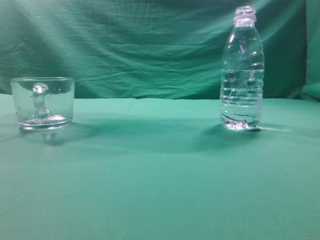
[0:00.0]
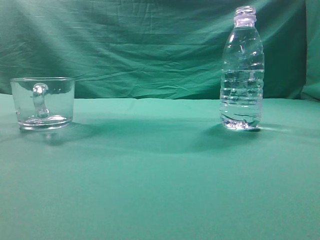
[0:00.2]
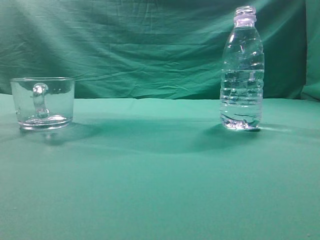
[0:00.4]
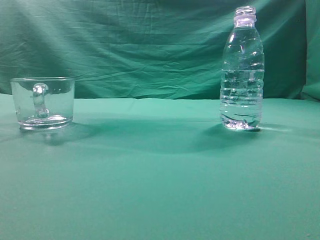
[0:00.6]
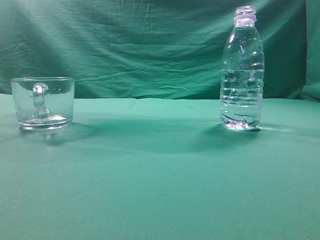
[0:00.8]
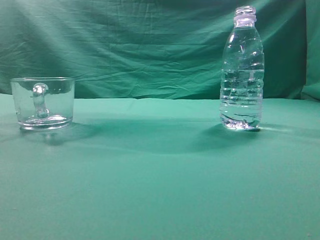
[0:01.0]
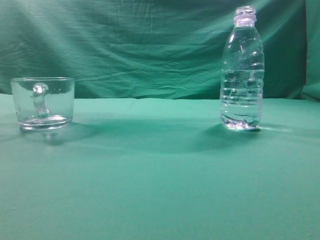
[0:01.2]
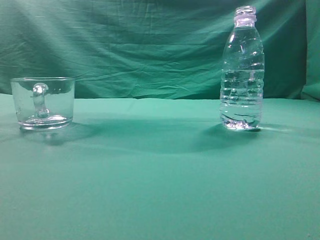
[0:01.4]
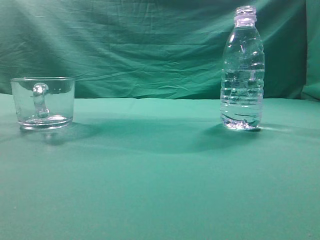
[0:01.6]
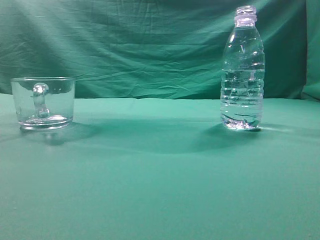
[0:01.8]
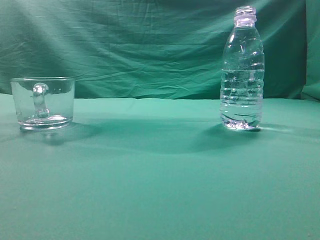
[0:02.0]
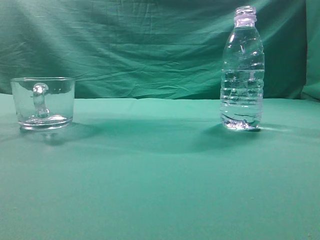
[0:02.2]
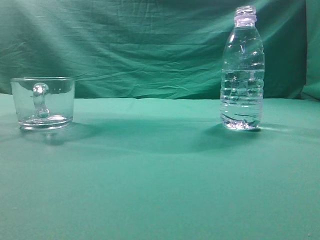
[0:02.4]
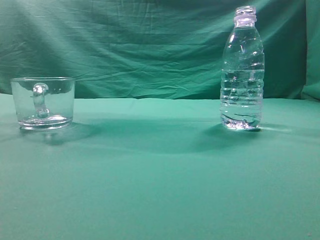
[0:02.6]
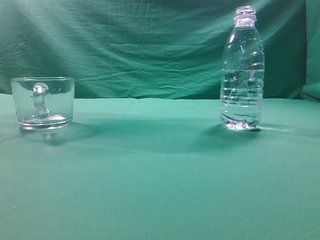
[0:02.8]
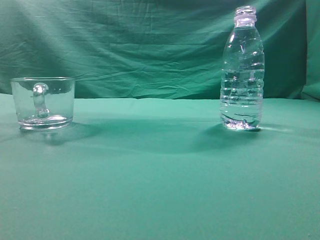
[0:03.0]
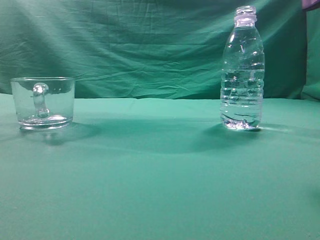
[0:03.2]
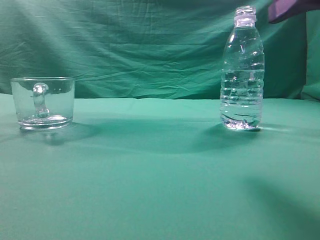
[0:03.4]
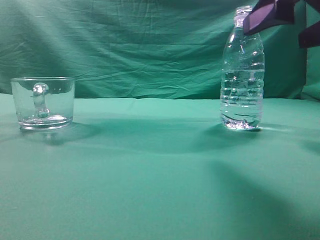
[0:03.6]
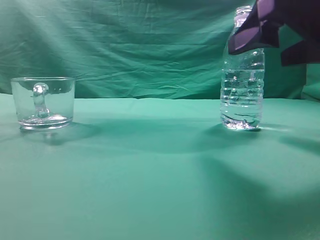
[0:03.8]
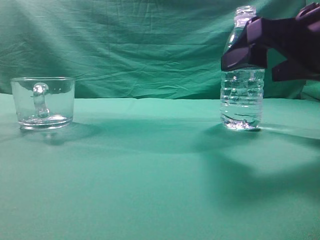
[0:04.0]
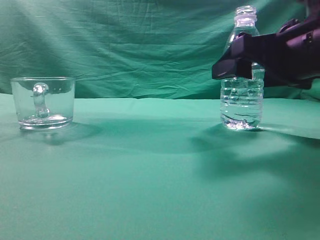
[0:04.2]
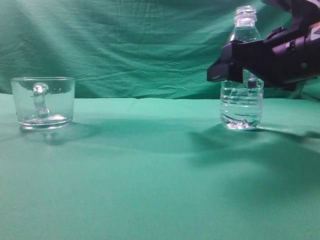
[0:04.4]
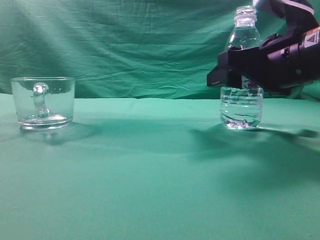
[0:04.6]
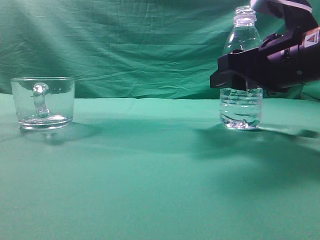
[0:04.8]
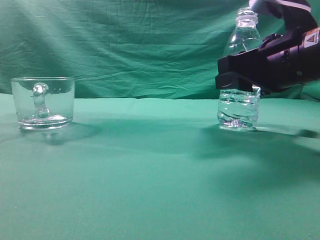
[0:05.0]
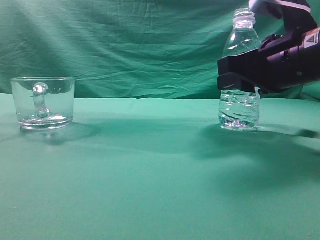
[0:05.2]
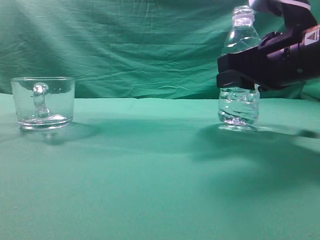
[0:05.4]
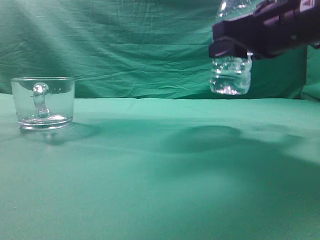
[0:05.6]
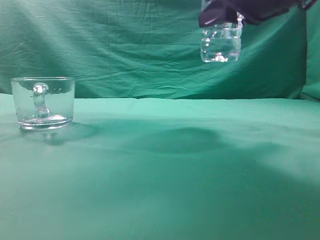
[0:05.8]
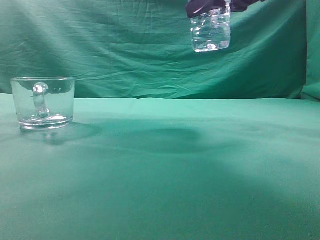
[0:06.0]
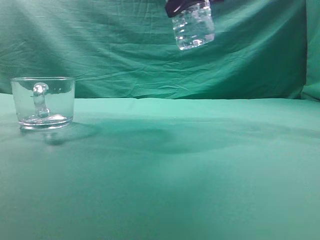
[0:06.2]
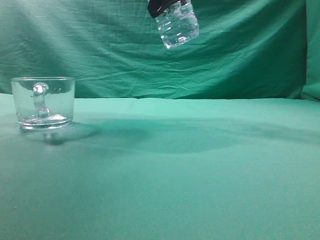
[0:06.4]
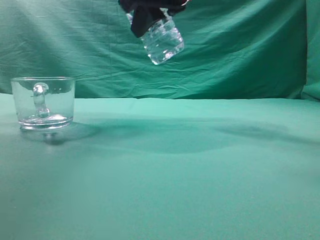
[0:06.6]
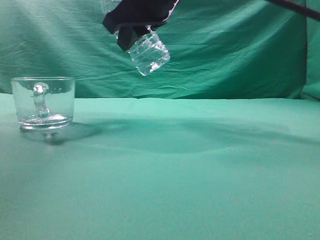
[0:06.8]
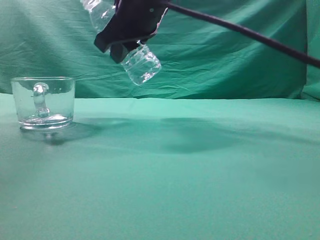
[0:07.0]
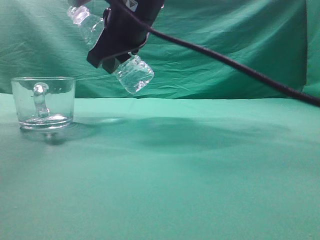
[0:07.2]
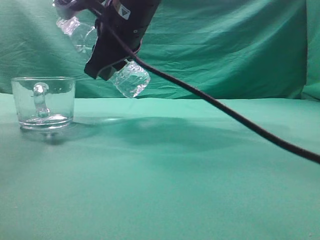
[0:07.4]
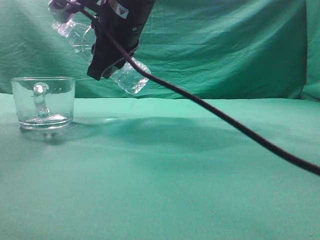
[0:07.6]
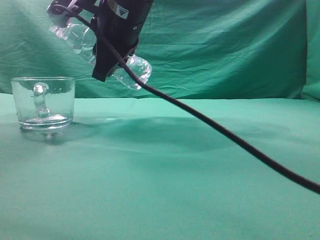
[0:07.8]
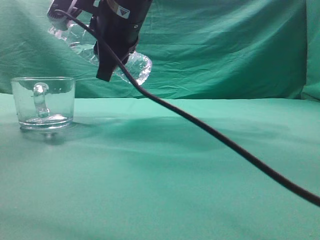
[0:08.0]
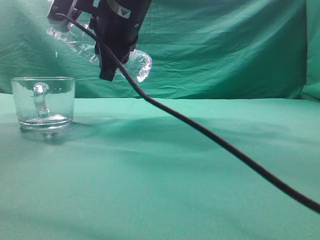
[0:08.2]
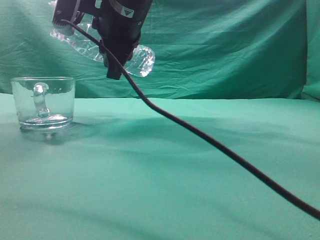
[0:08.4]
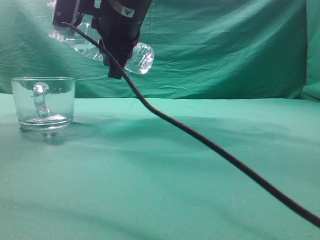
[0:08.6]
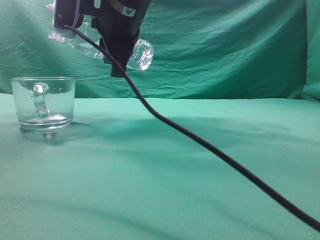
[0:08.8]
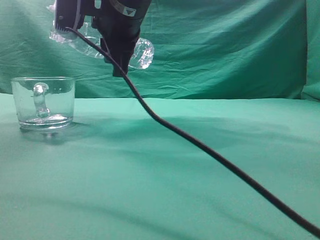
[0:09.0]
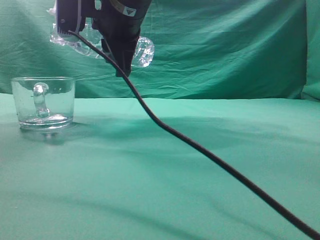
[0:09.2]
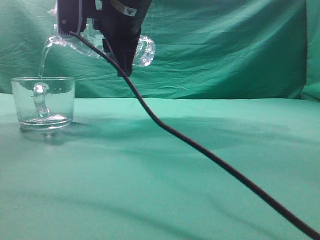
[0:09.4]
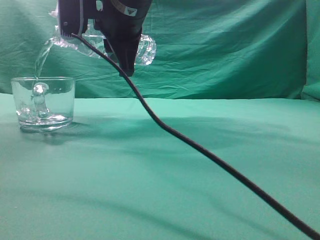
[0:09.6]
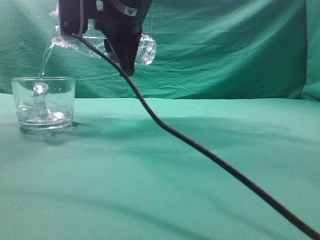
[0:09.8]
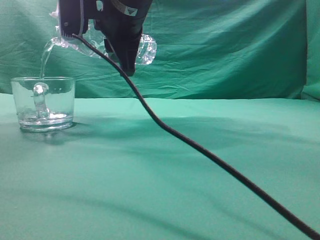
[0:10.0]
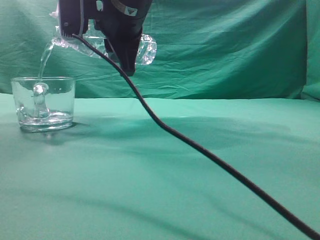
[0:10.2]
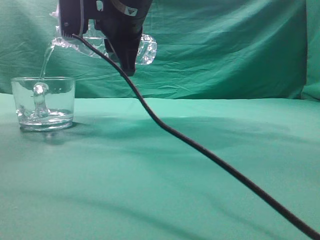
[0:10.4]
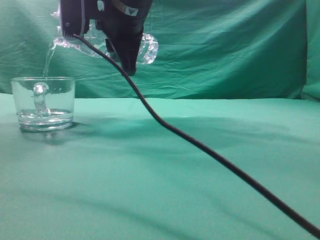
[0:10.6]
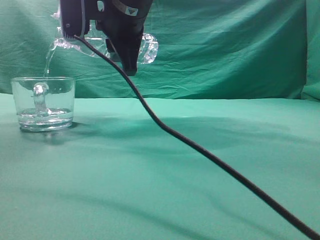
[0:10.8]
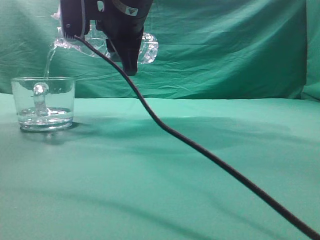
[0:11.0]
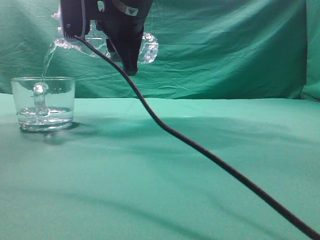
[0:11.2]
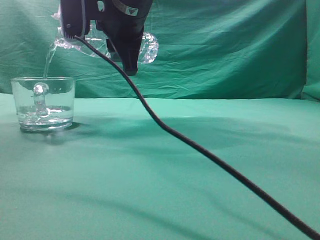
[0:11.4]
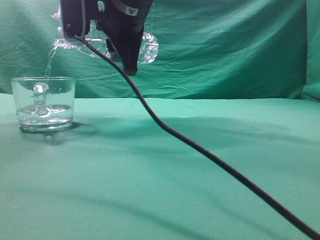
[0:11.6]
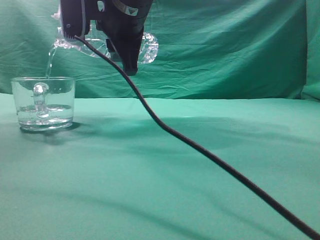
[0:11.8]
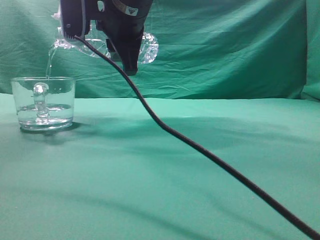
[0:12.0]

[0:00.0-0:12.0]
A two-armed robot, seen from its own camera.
Task of the whole recording: pick up the water bottle and pour the water in it into the glass.
Step, 0:00.0 to 0:05.4: Grasp the mineral water bottle.
0:03.0 to 0:04.4: The right gripper travels forward, downward and to the left by some 15 cm, and opens up.
0:04.4 to 0:06.0: The right gripper heads upward, covering approximately 10 cm, and closes up.
0:06.0 to 0:07.6: The right gripper shifts some 20 cm to the left.
0:09.0 to 0:10.4: The grippers stay close to where they were, moving slightly.
0:10.4 to 0:12.0: Both grippers stay about where they are.

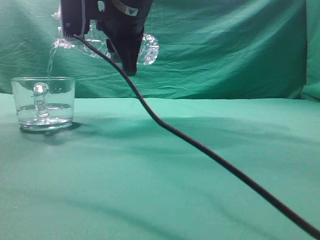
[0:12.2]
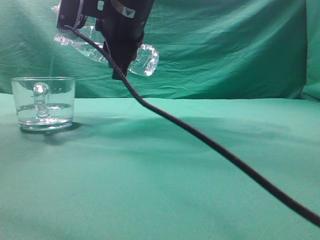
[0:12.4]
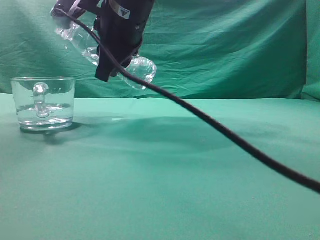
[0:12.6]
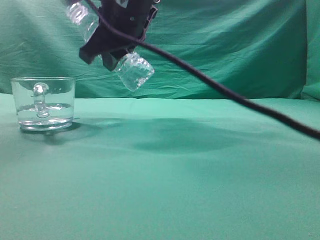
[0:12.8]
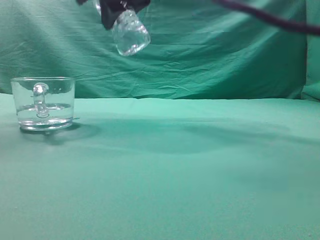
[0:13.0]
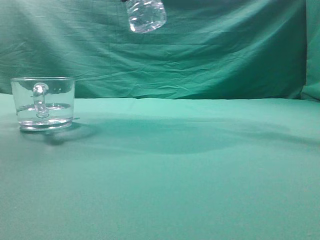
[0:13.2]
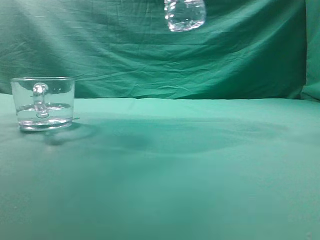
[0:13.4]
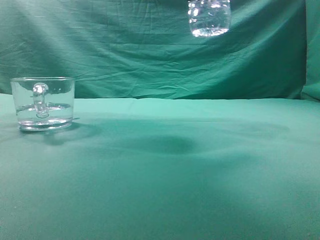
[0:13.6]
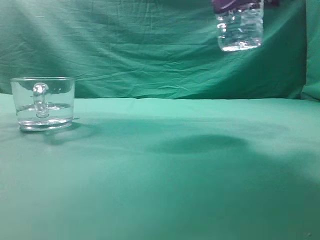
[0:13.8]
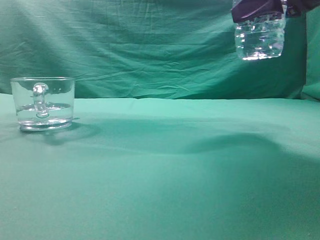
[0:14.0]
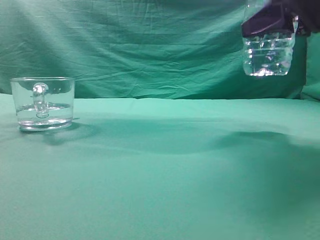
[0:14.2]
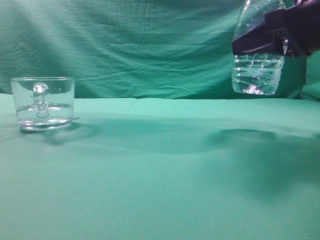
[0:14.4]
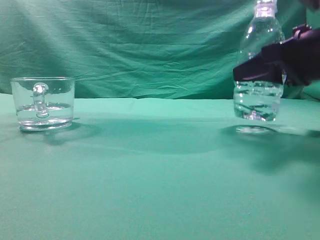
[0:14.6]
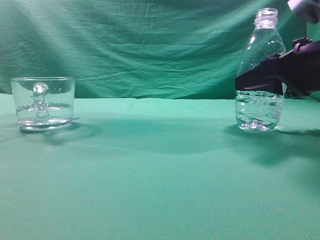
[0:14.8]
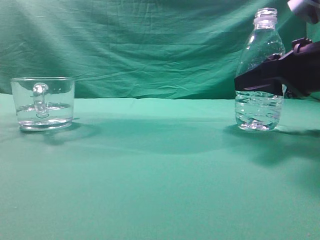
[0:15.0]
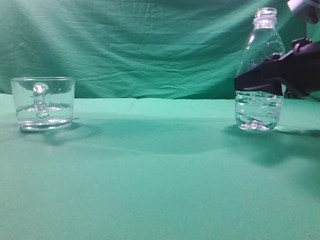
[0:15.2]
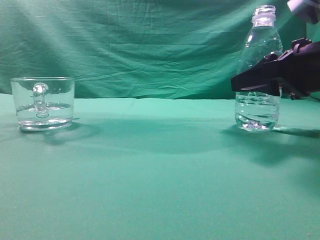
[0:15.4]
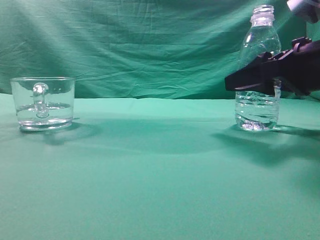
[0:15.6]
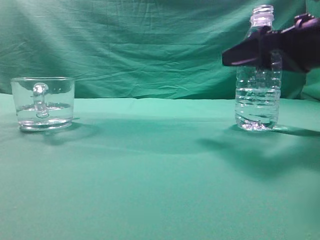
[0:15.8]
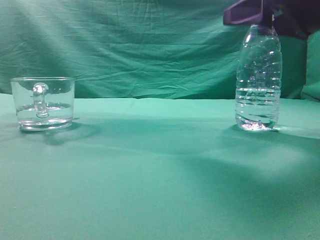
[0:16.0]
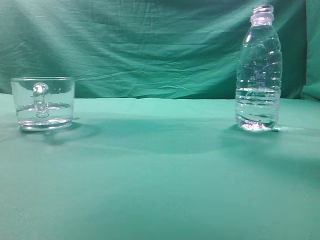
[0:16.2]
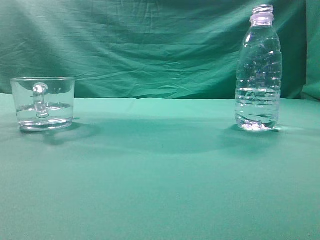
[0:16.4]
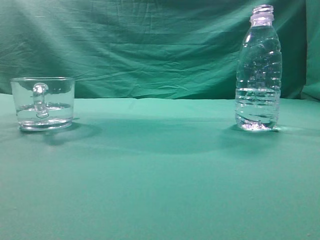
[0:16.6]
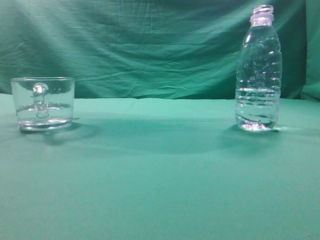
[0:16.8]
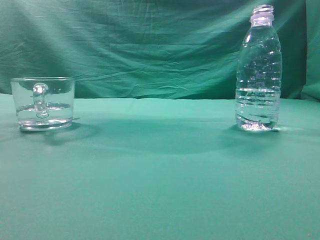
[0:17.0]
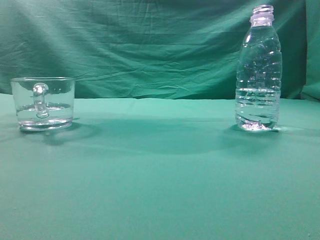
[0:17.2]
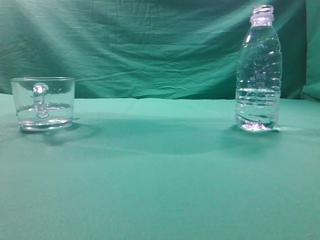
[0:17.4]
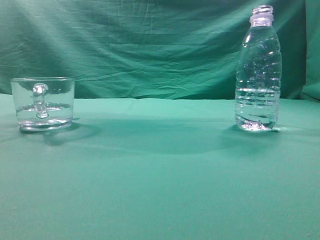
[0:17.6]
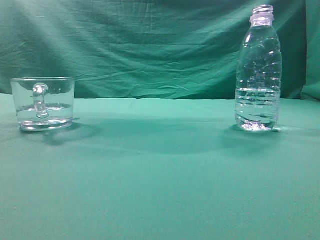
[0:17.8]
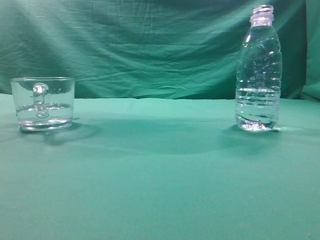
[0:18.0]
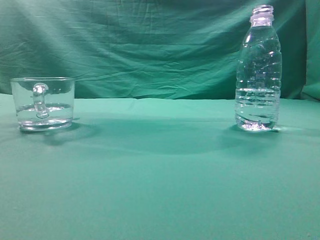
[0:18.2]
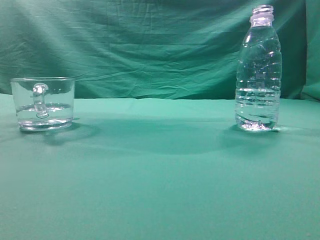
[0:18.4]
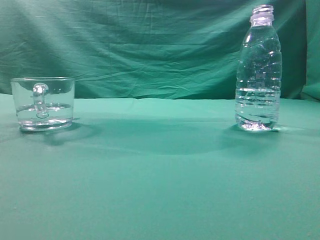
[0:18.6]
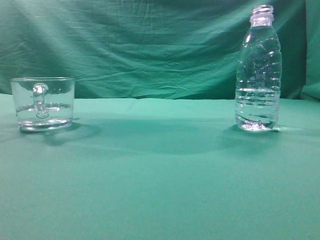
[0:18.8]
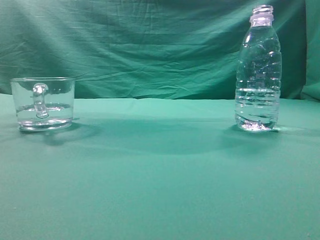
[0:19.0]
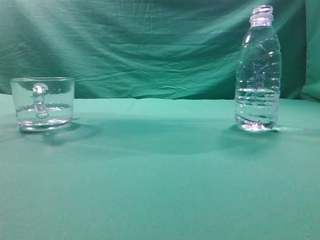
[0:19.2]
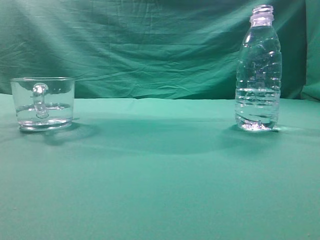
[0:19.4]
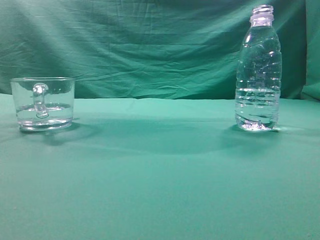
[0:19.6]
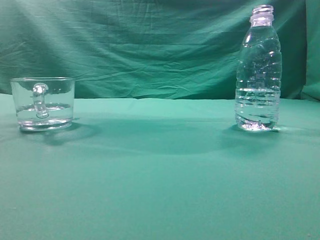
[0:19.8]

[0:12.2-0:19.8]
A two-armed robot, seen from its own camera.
Task of the whole recording: pick up the water bottle and pour the water in it into the glass.
0:12.2 to 0:13.8: The right gripper heads to the right, covering about 20 cm.
0:13.8 to 0:15.2: The right gripper goes approximately 15 cm downward.
0:15.2 to 0:16.8: The right gripper travels upward and backward by approximately 30 cm, and closes its fingers.
